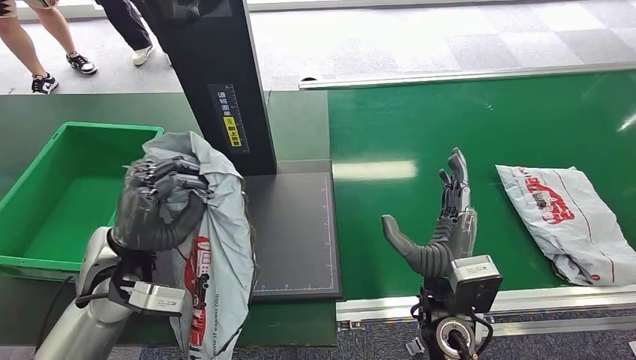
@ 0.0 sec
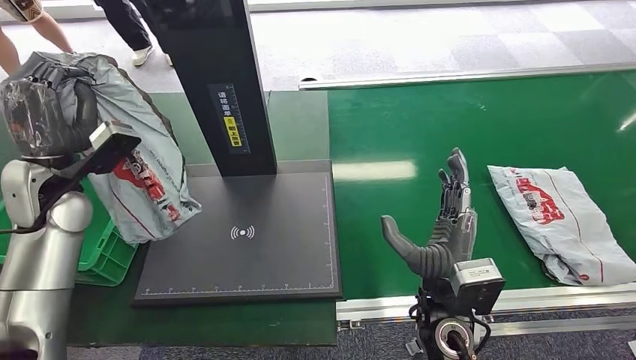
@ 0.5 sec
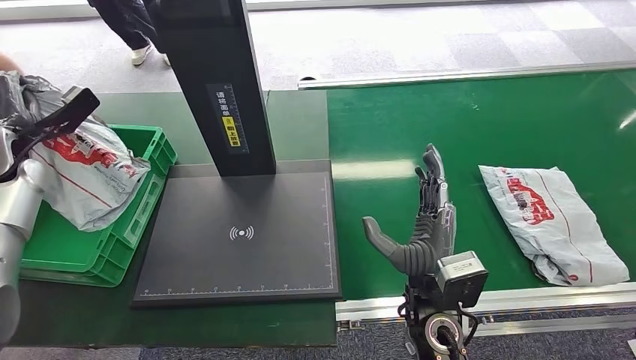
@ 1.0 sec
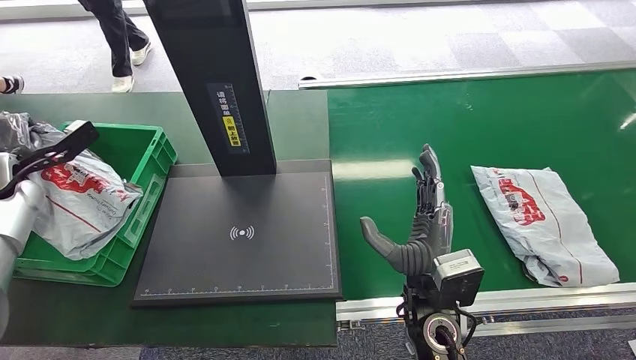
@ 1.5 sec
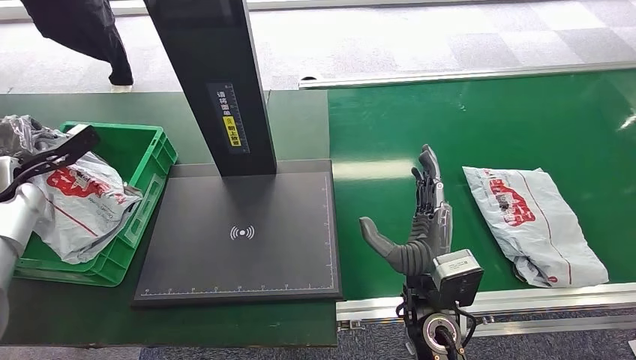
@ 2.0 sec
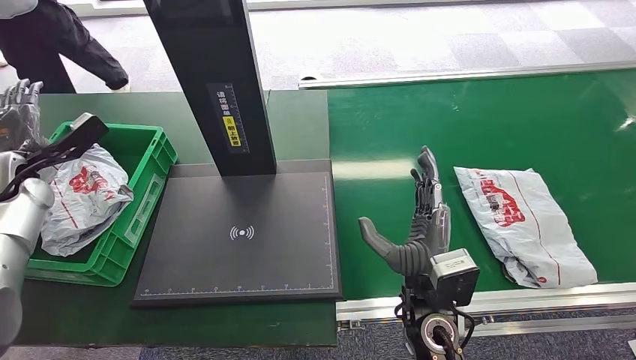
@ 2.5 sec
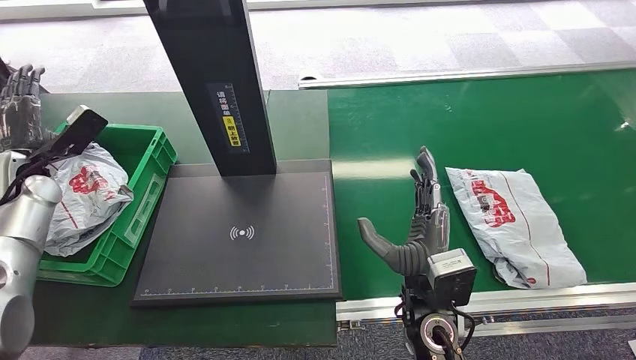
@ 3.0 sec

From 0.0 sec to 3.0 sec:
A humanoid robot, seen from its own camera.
Step, from 1.0 sec to 3.0 sec: Place the package into the parcel locker.
